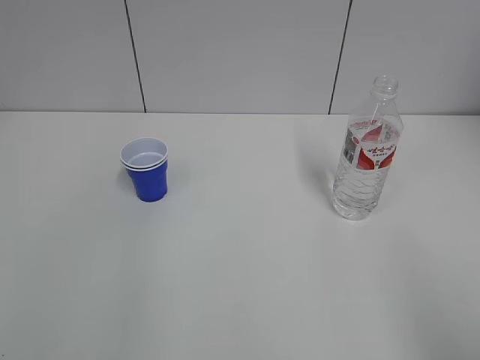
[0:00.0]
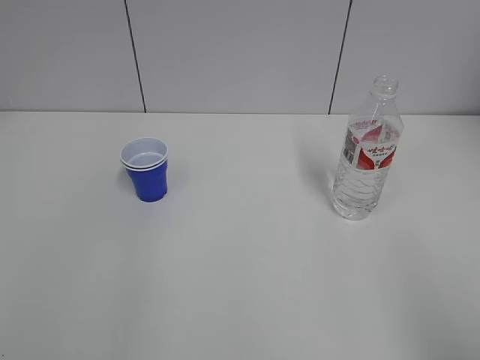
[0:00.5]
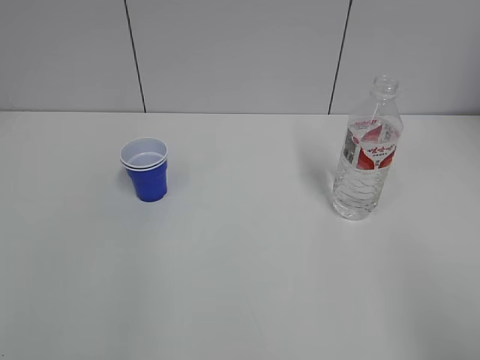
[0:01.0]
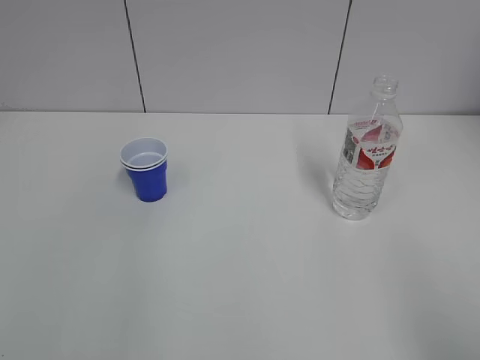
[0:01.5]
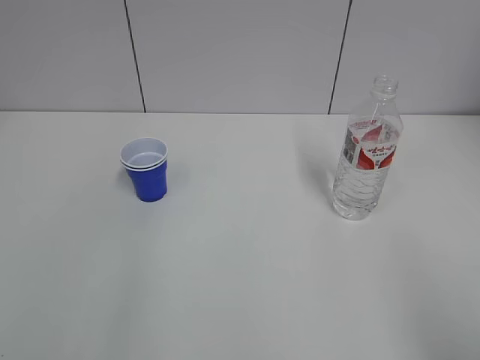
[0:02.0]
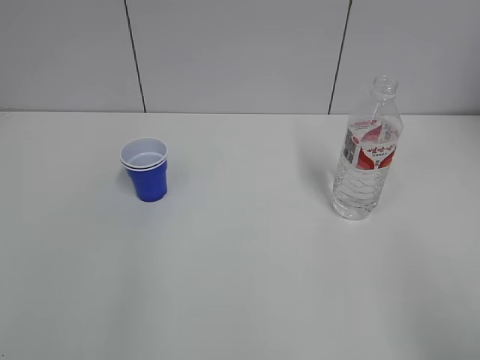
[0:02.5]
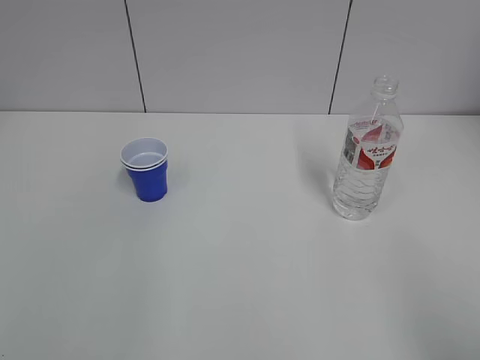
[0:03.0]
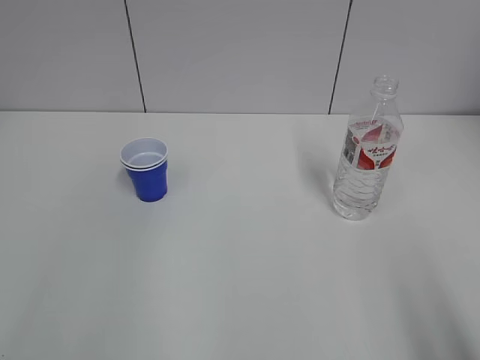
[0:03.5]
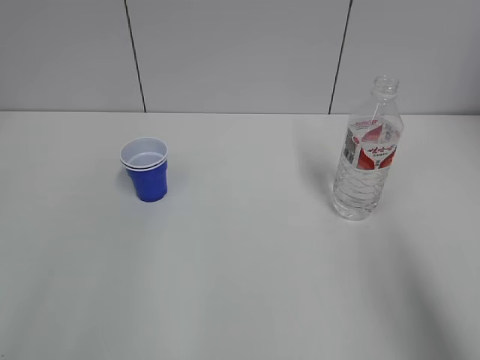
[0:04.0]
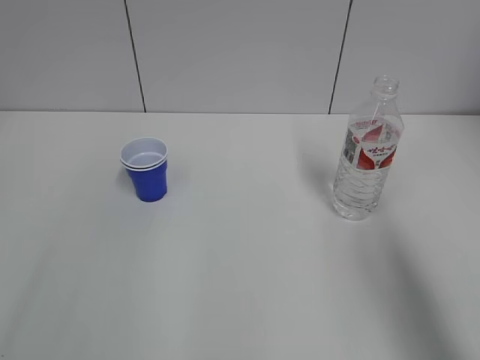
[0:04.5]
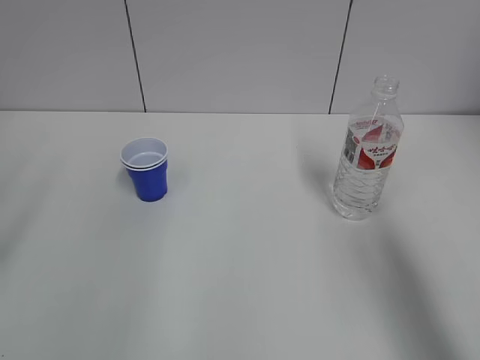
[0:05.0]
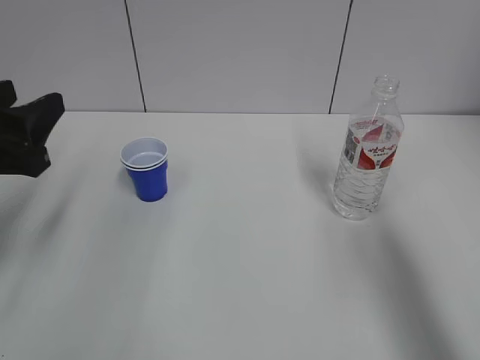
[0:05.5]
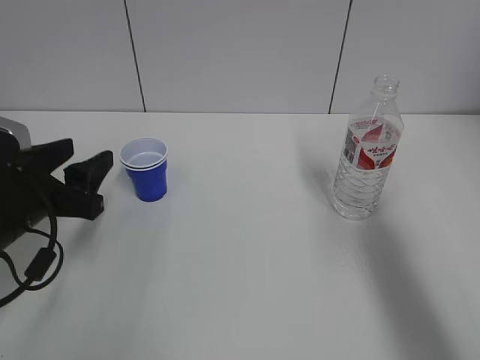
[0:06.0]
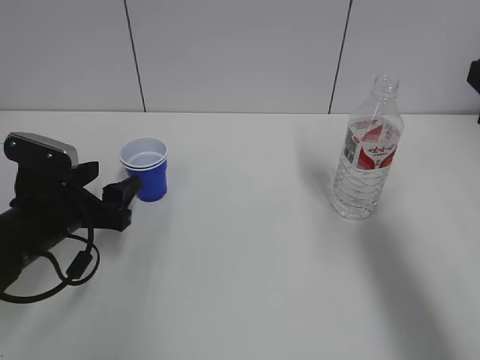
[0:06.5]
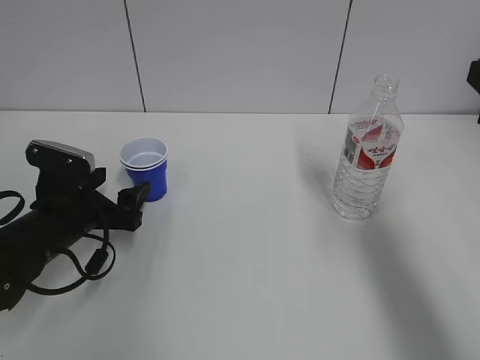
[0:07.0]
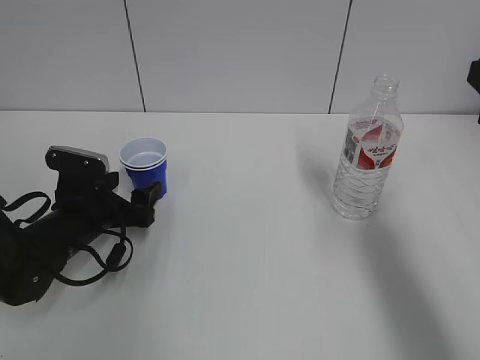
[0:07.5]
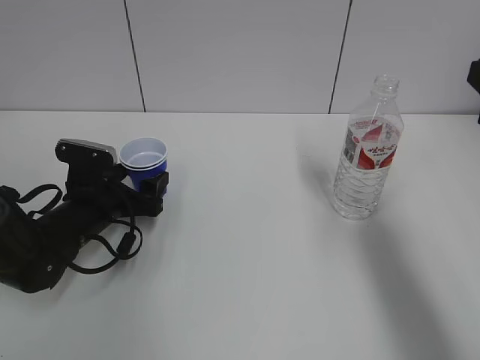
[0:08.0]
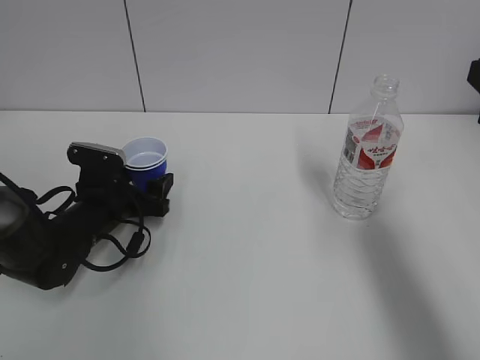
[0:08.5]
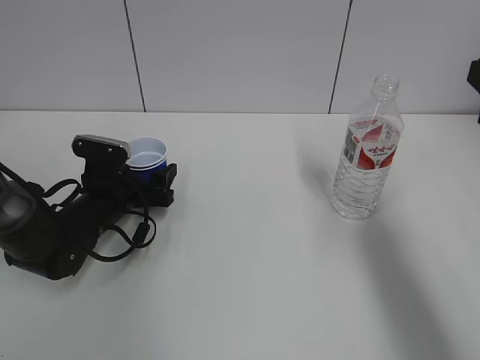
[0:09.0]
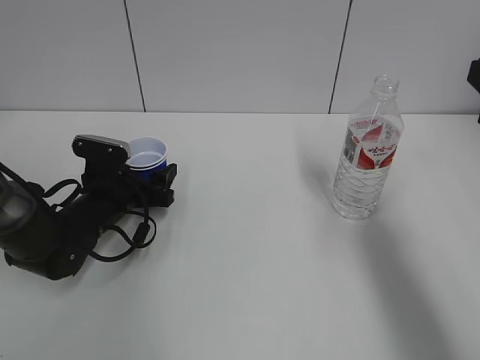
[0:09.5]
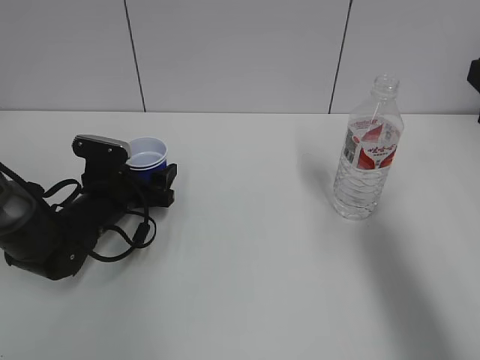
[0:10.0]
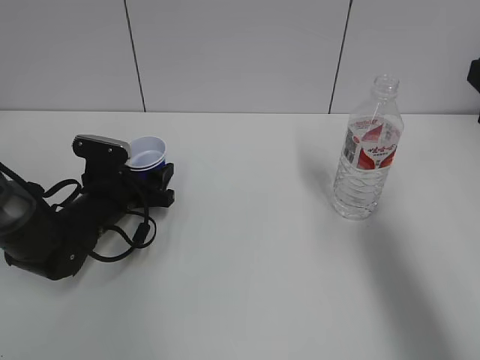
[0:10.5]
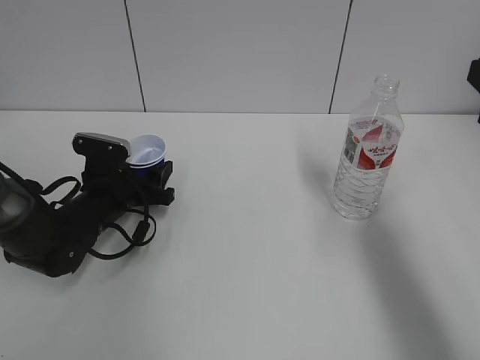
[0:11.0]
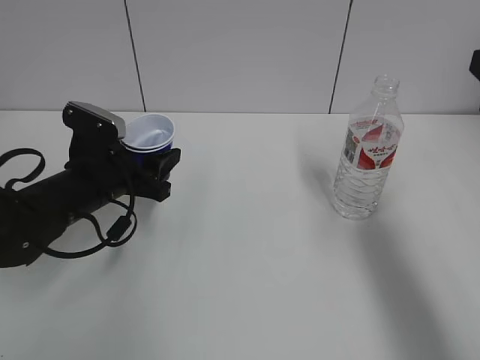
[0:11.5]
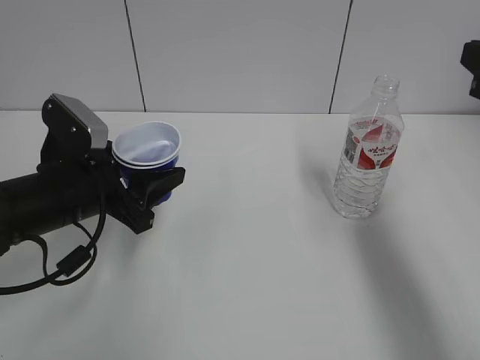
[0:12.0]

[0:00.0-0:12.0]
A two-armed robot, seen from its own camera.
Step, 0:00.0 to 0:10.5: Grab the paper cup with the left hand.
0:02.0 to 0:04.0: The right gripper heads upward and forward, covering some 10 cm.
0:04.0 to 0:06.0: The left gripper travels forward and downward by roughly 25 cm. The right gripper heads forward, covering approximately 15 cm.
0:06.0 to 0:08.0: The left gripper is displaced downward and forward by roughly 15 cm, and opens.
0:08.0 to 0:10.0: The grippers move only a little.
0:10.0 to 0:12.0: The left gripper moves upward and backward, roughly 15 cm, and closes up.

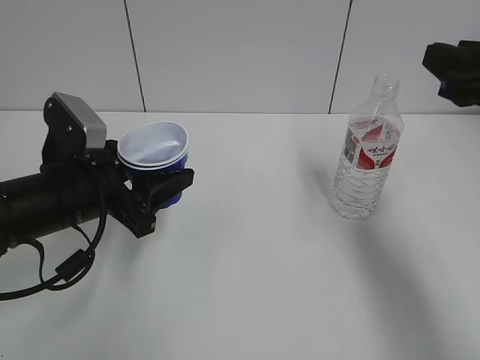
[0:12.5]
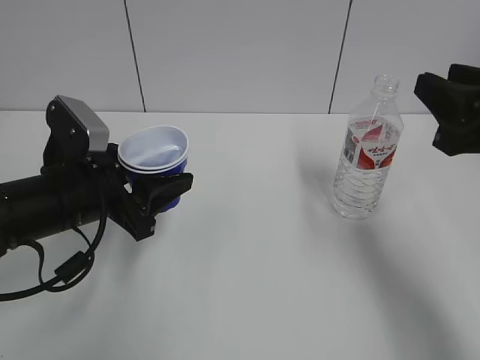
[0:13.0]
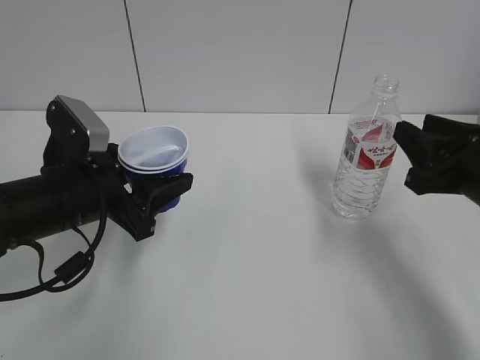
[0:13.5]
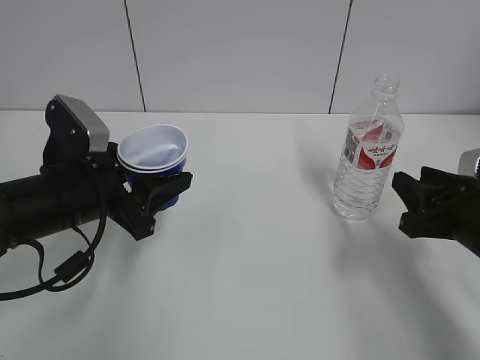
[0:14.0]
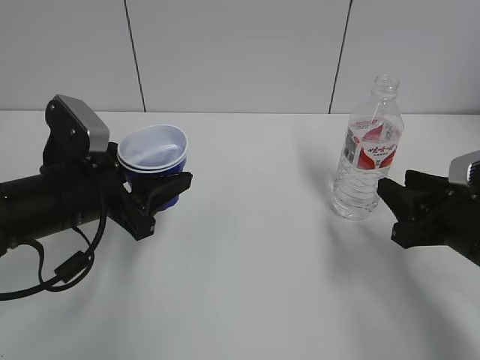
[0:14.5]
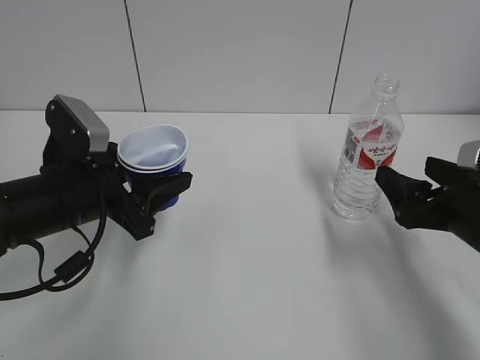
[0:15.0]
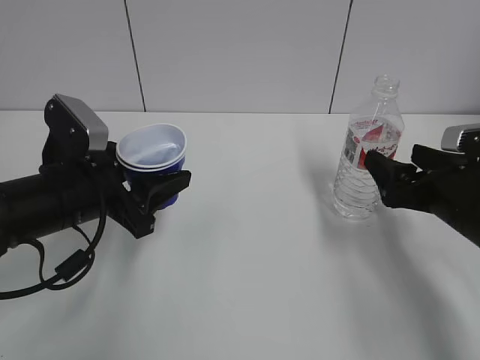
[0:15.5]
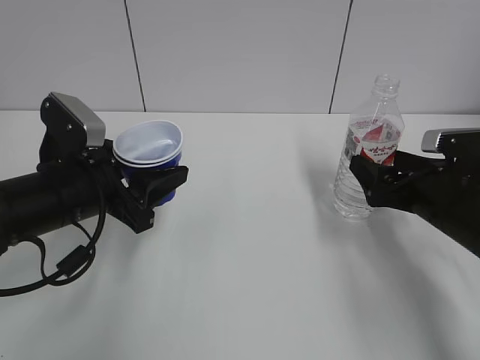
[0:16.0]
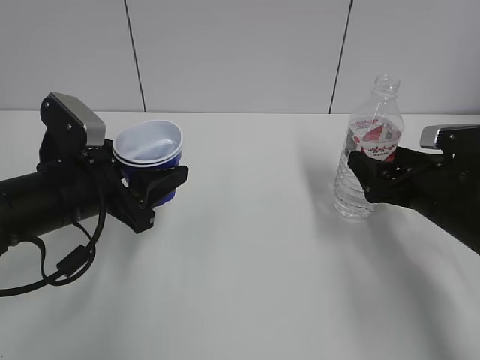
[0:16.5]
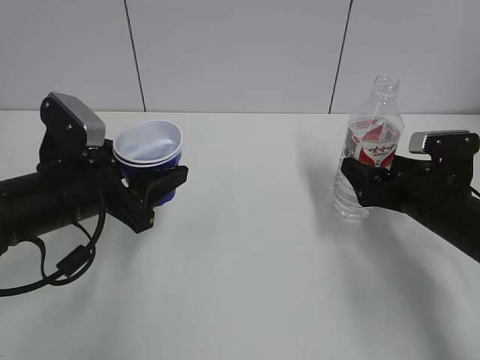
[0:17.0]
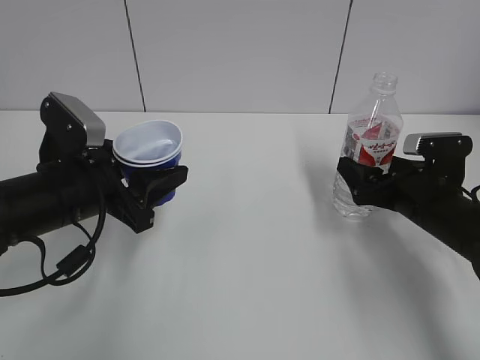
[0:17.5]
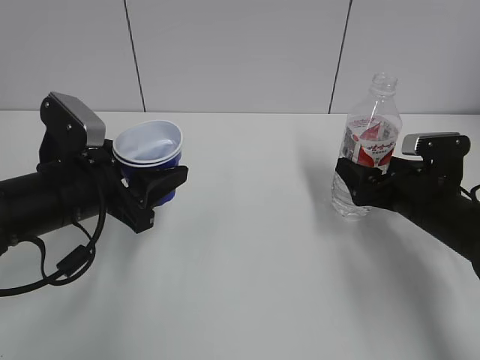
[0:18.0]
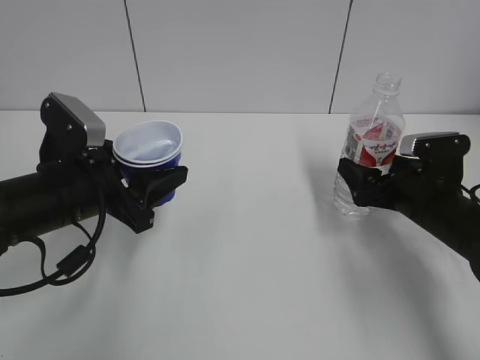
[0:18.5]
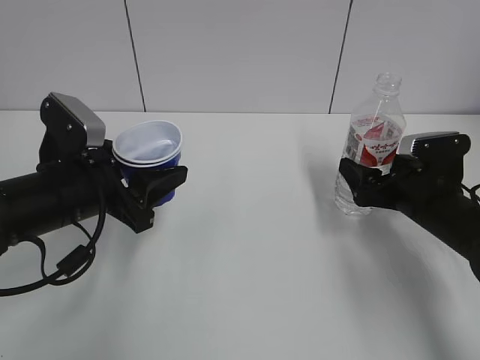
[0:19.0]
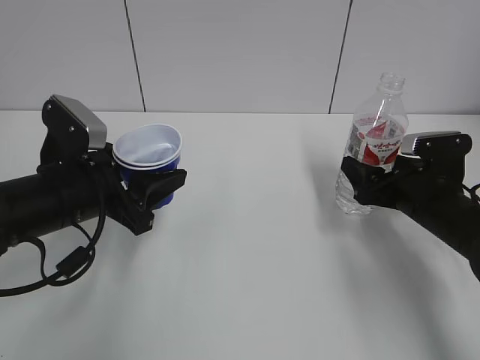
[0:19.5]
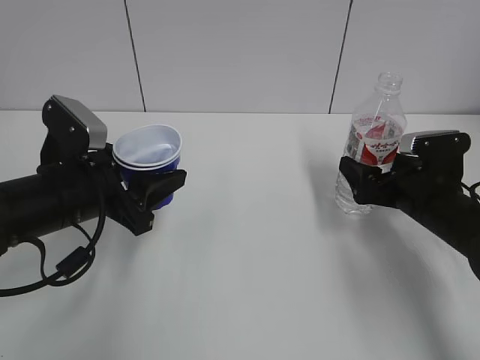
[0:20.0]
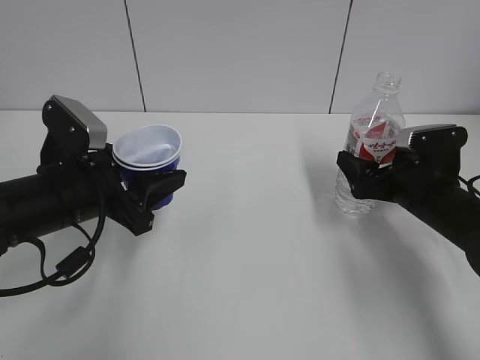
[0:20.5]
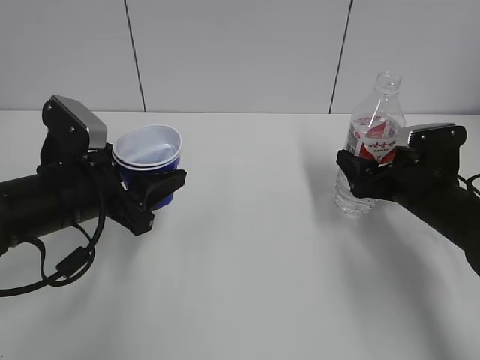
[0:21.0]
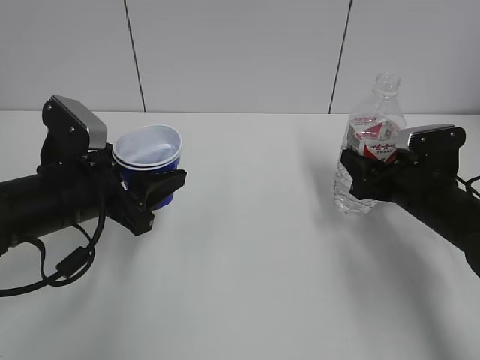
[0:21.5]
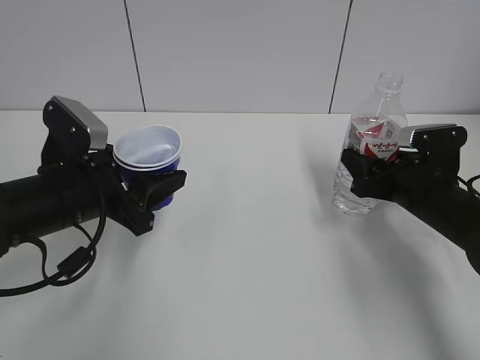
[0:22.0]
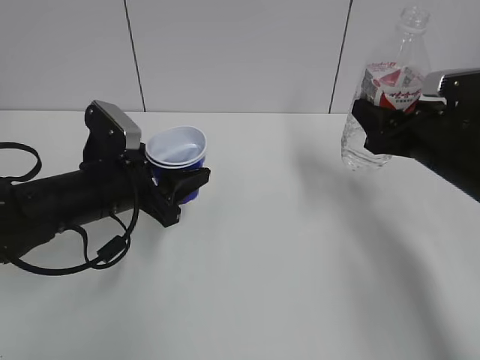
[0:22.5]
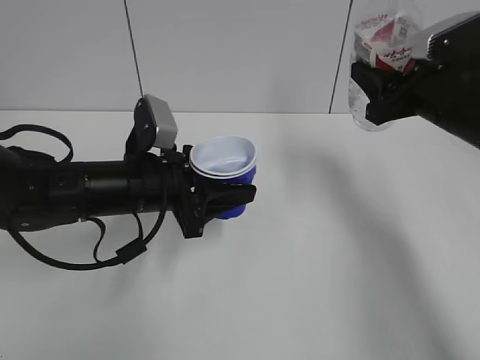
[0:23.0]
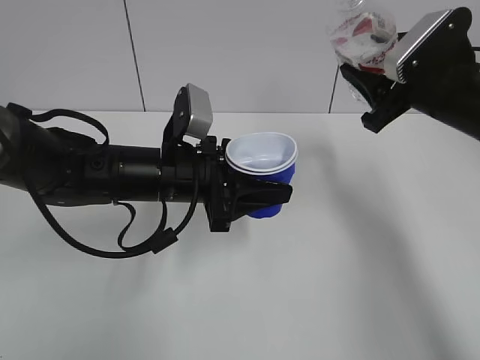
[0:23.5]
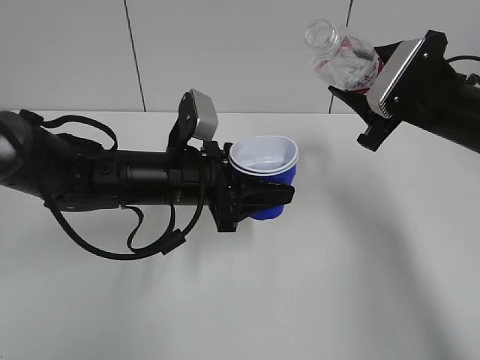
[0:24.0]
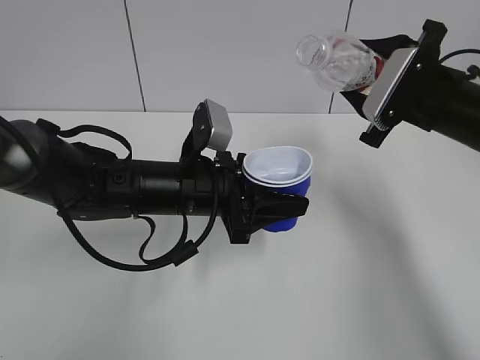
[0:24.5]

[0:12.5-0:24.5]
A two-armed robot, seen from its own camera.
Step, 0:12.5 to 0:21.5: Grab the water bottle with the right hand.
0:12.5 to 0:14.5: The right gripper travels downward by roughly 15 cm.
0:14.5 to 0:16.5: The right gripper is displaced forward by about 5 cm, and opens.
0:16.5 to 0:18.5: The grippers move only a little.
0:18.5 to 0:20.5: Neither gripper changes place.
0:20.5 to 0:22.5: The right gripper goes approximately 5 cm upward, and closes its fingers.
0:22.5 to 0:24.5: The right gripper heads upward, covering roughly 5 cm. The left gripper goes roughly 10 cm to the right.

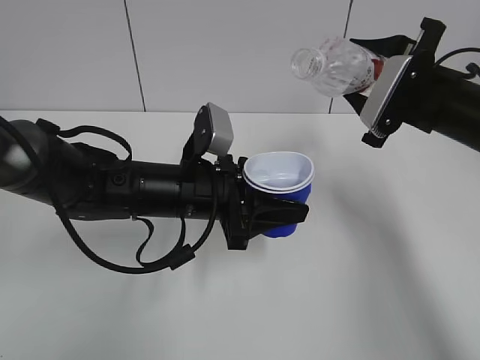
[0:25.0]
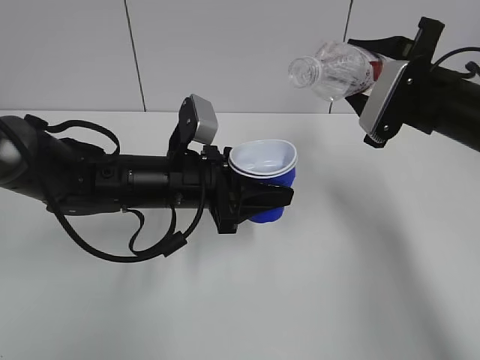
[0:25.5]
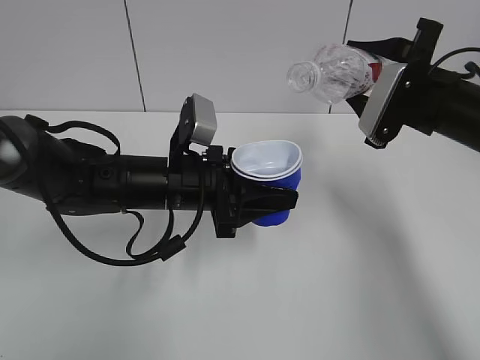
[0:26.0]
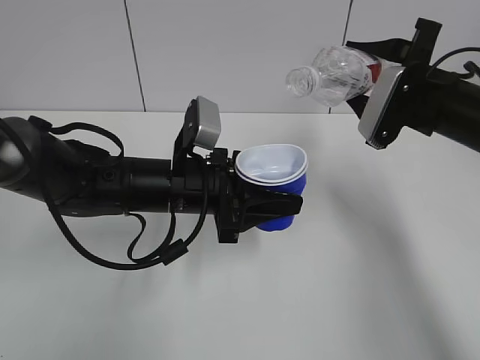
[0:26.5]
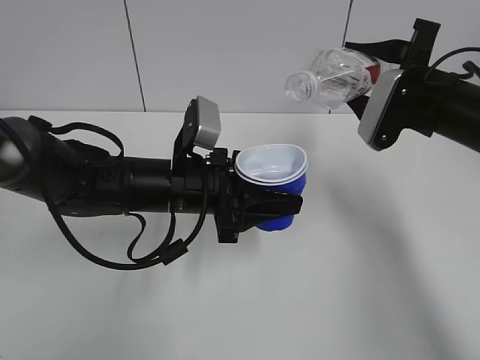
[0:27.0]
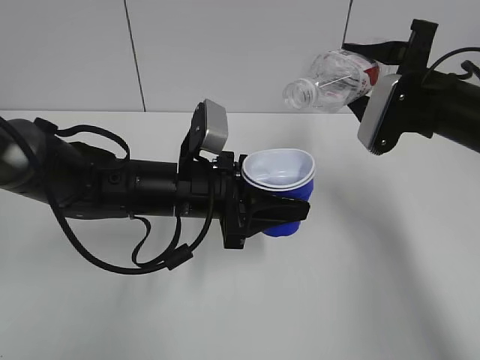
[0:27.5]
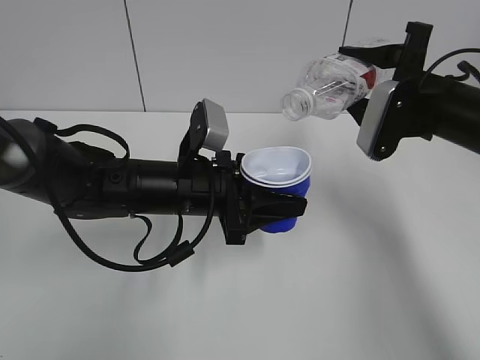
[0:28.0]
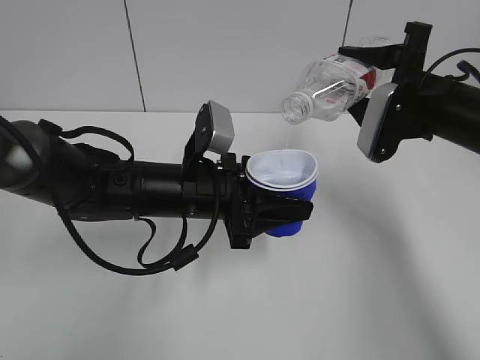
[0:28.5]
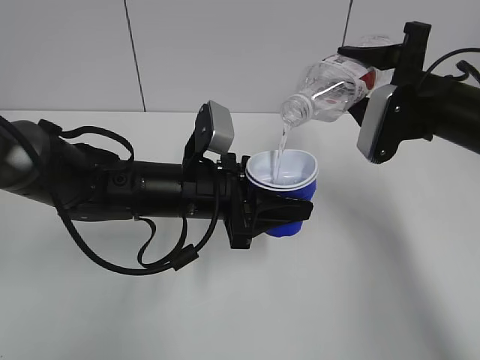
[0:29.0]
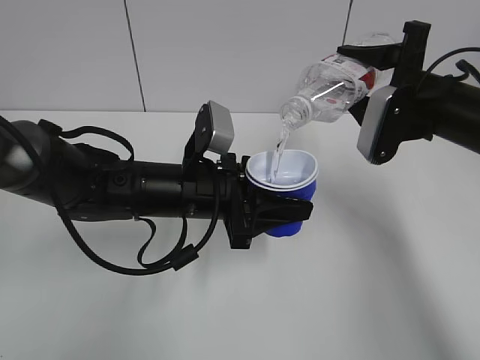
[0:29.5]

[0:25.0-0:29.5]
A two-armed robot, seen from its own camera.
0:25.0 to 0:27.0: The grippers make only small movements.
0:27.0 to 0:29.5: The grippers move only a little.
